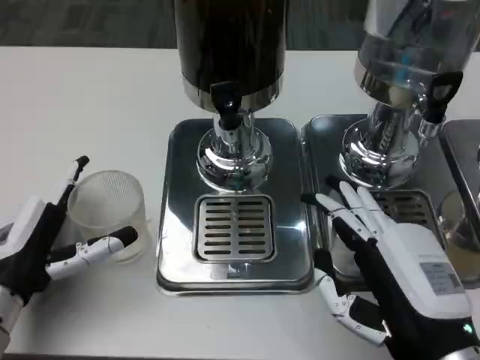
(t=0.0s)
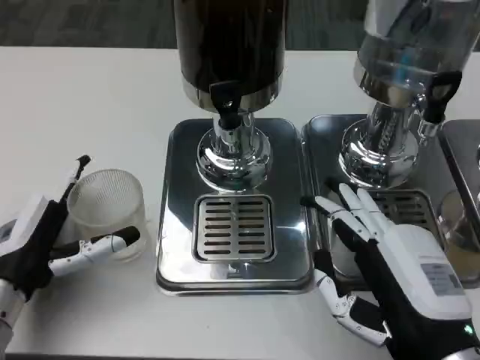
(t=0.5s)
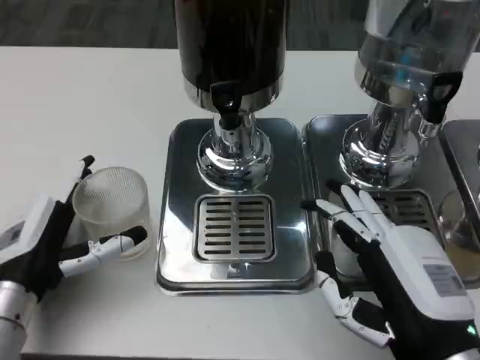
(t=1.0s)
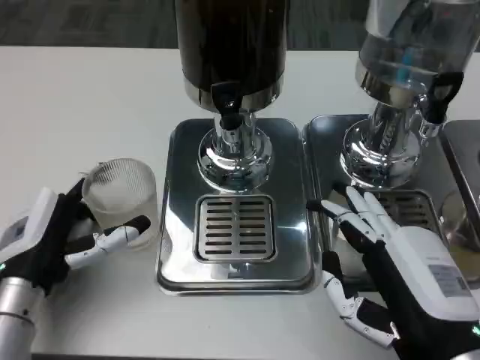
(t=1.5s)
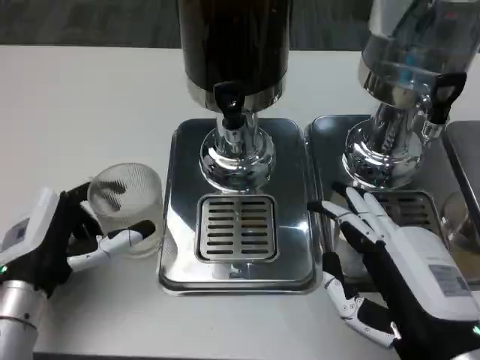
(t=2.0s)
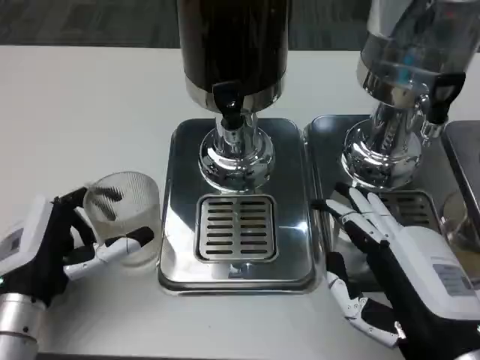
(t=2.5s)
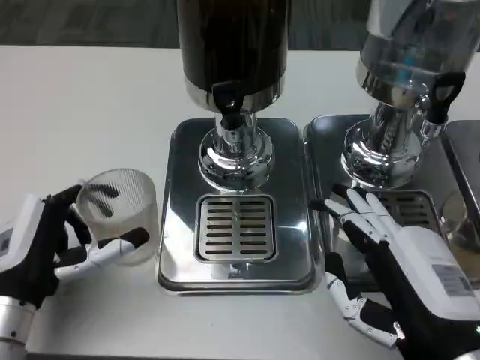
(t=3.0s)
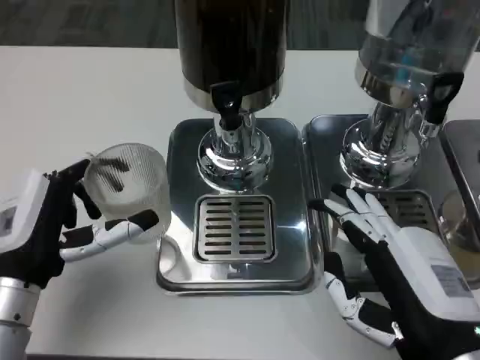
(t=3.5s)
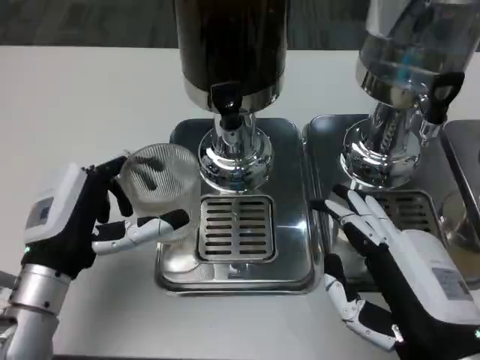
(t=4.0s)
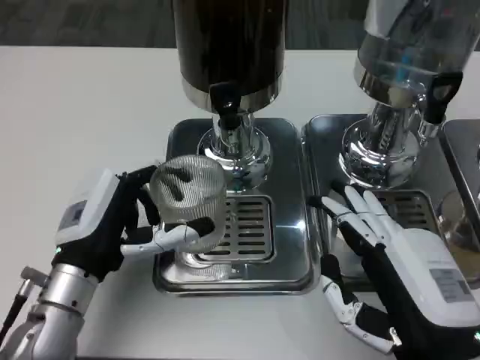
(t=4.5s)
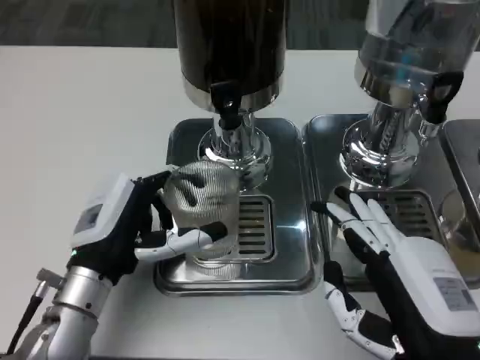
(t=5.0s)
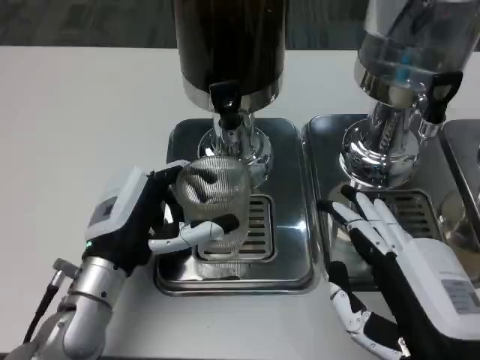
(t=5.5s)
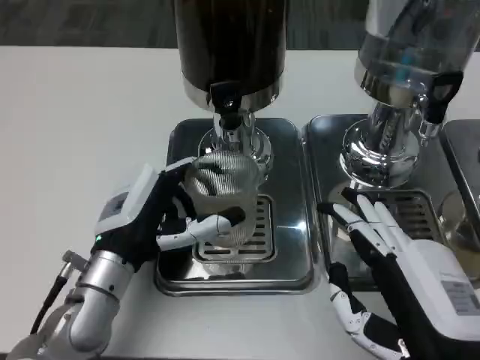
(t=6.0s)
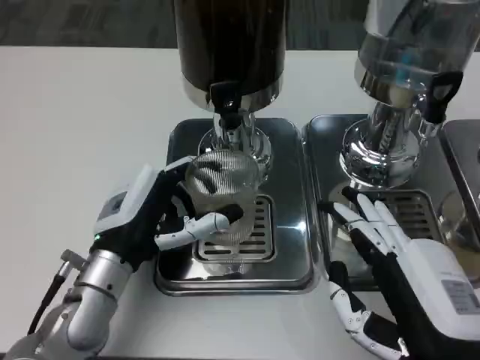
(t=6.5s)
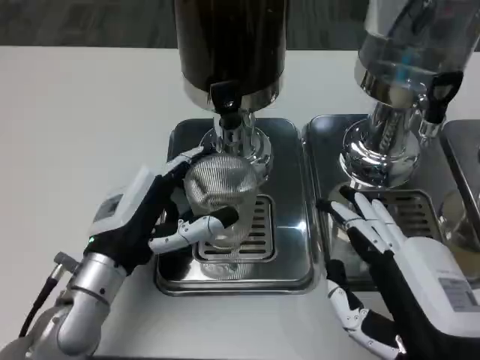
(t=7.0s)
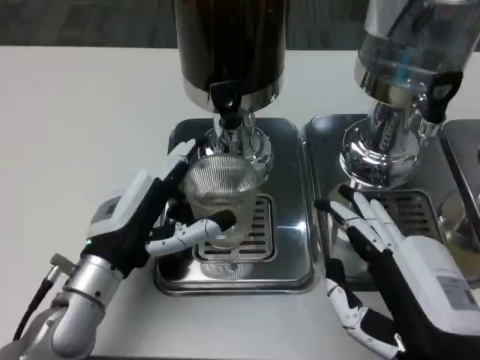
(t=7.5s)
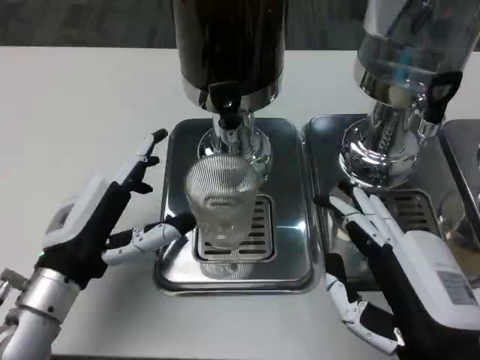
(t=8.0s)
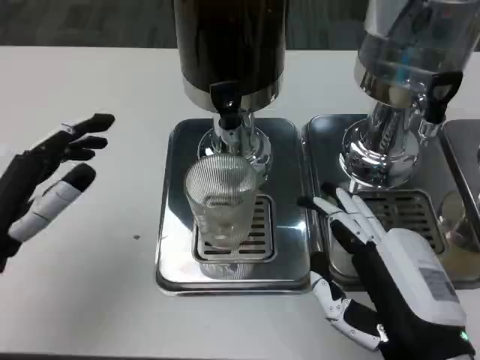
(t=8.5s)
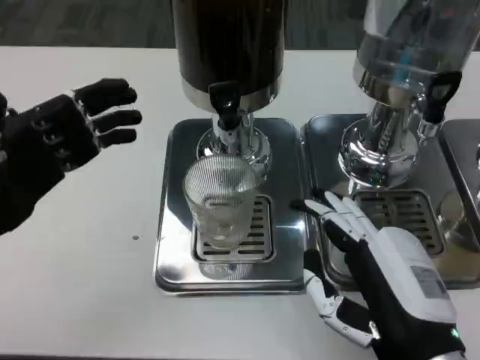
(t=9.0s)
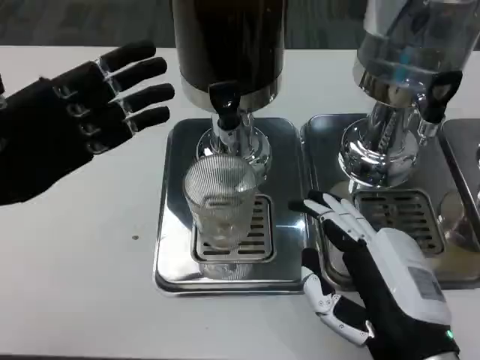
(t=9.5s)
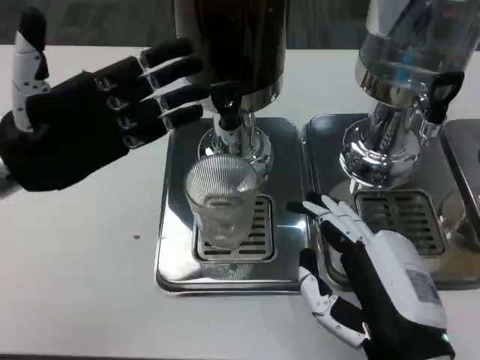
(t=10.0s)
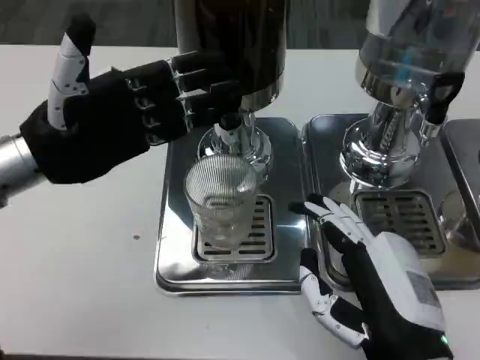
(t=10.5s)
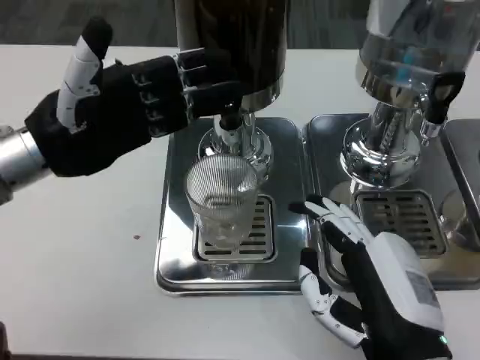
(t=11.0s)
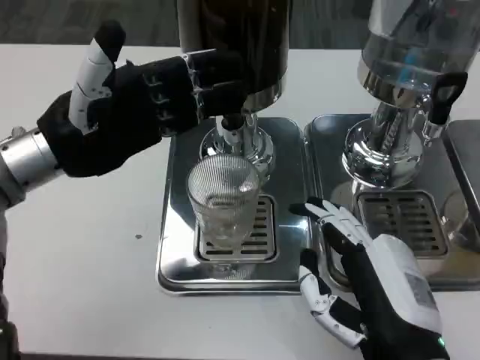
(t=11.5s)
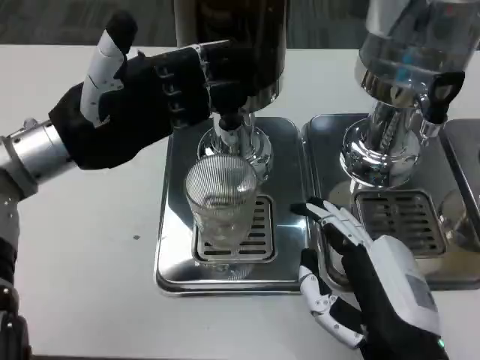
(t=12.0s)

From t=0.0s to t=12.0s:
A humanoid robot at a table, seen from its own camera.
Task of the whole recording: Grasp the cup under the faucet to collect the drink, then remove the cup.
From t=4.0s to t=6.0s: The left hand ends up about 5 cm from where it was.
From t=6.0s to t=8.0s: The left hand shifts roughly 5 cm to the left.
From t=8.0s to t=10.0s: The left hand goes some 15 cm upward, forward and to the left.
From t=10.0s to t=12.0s: The hands move only a little.

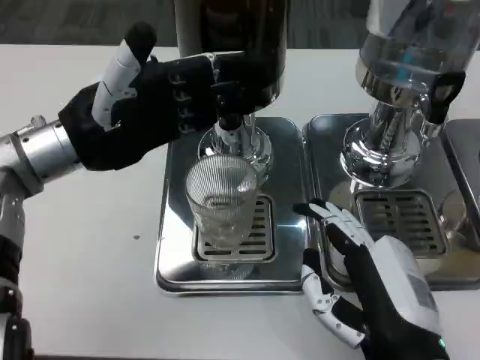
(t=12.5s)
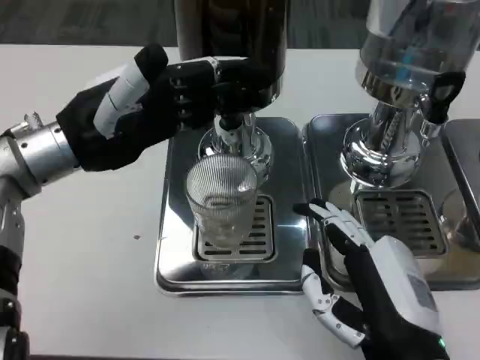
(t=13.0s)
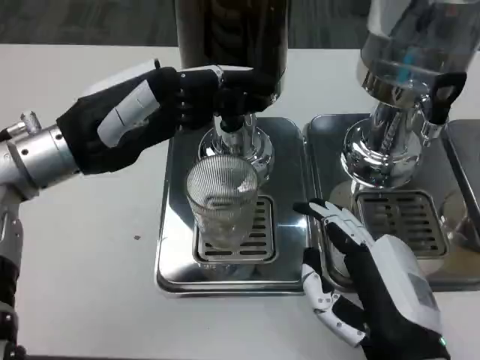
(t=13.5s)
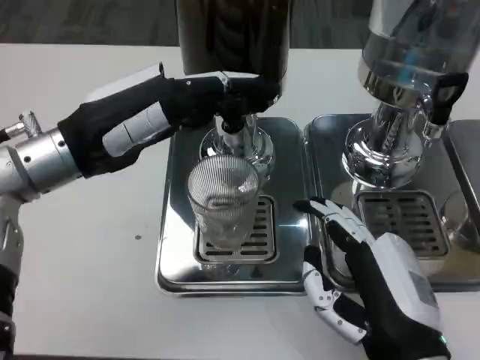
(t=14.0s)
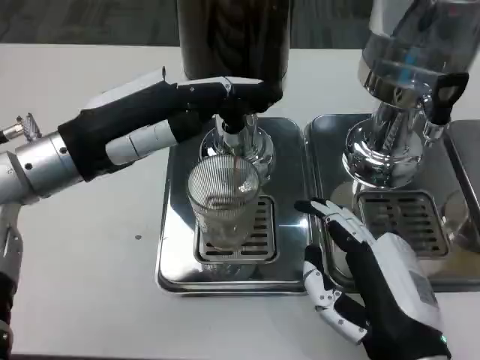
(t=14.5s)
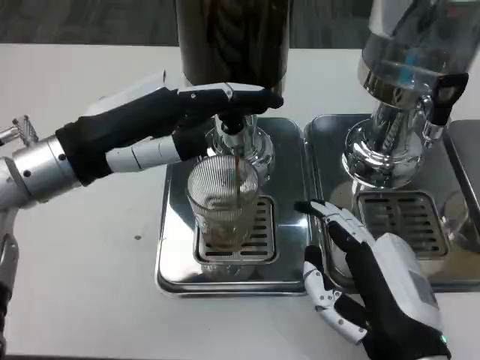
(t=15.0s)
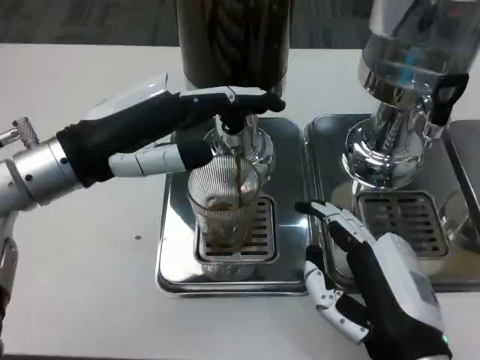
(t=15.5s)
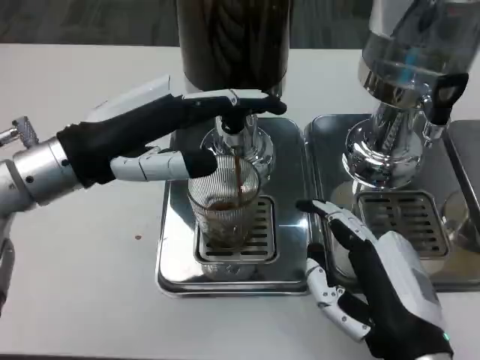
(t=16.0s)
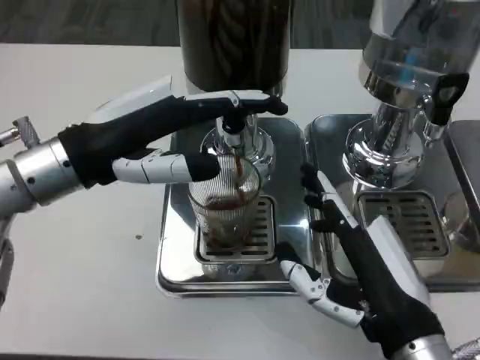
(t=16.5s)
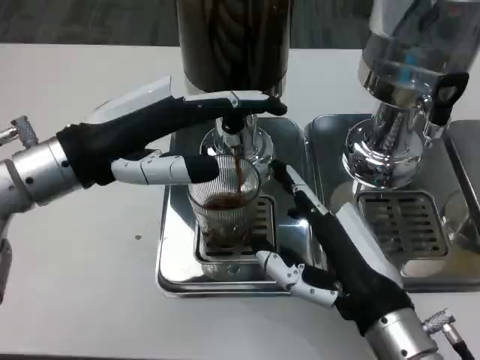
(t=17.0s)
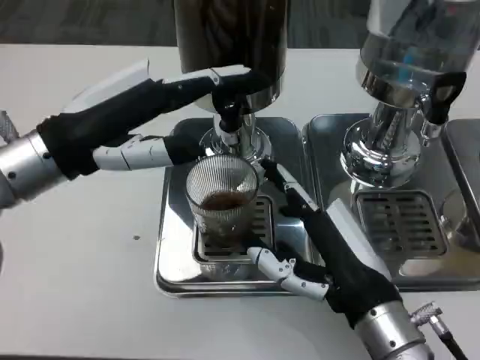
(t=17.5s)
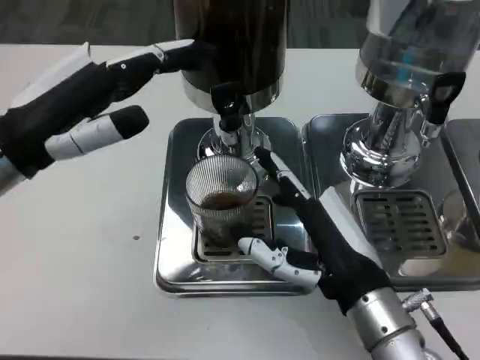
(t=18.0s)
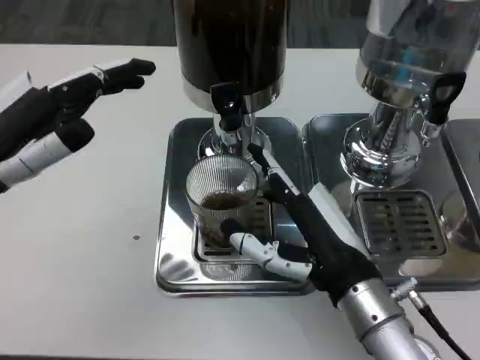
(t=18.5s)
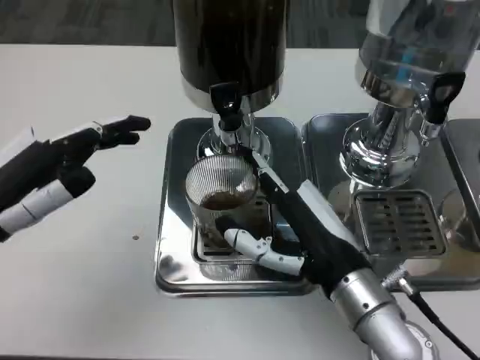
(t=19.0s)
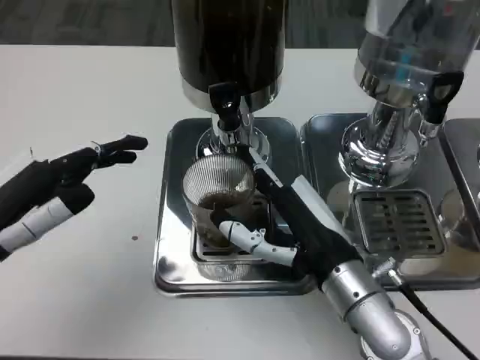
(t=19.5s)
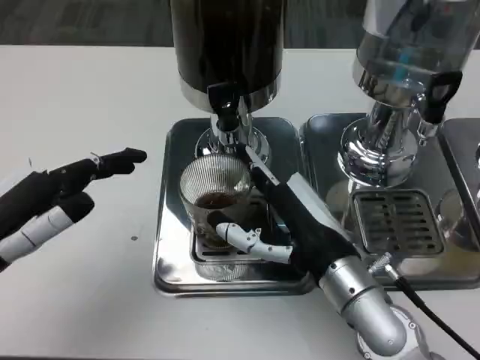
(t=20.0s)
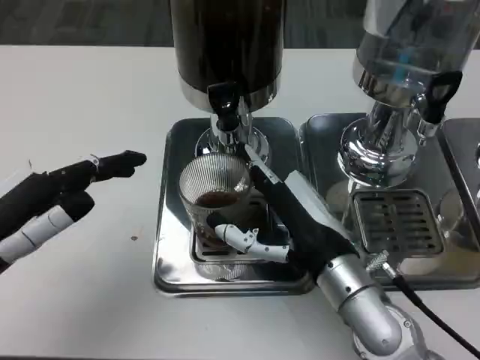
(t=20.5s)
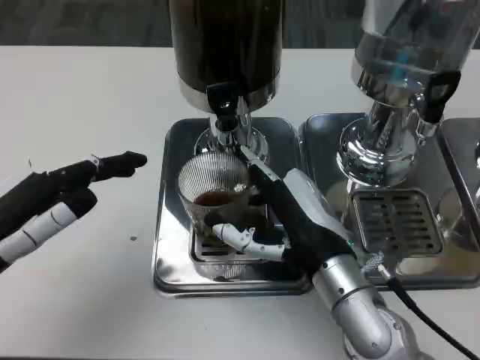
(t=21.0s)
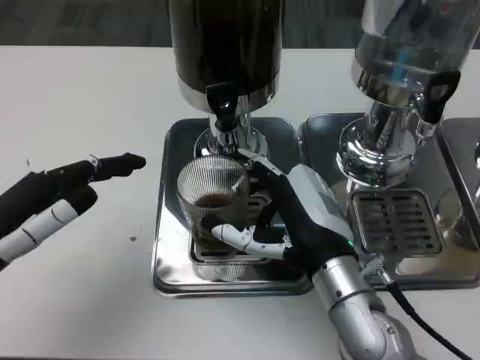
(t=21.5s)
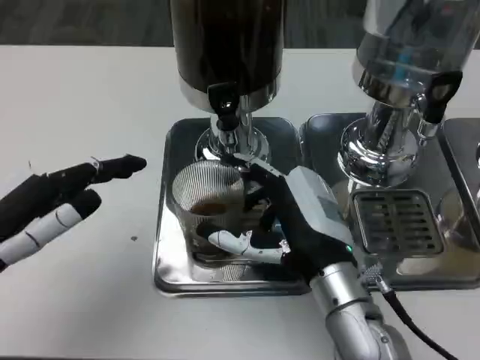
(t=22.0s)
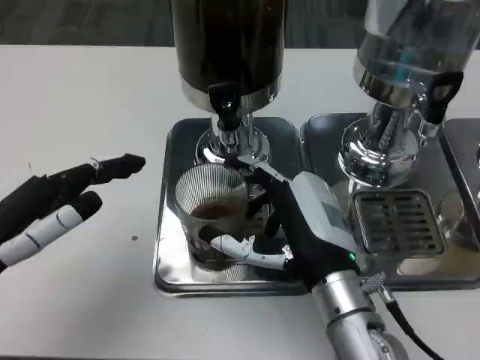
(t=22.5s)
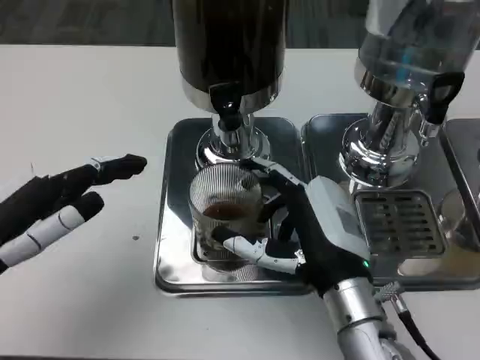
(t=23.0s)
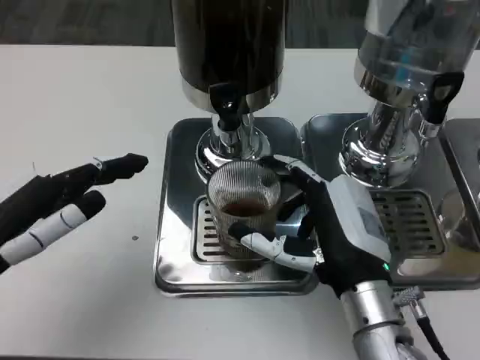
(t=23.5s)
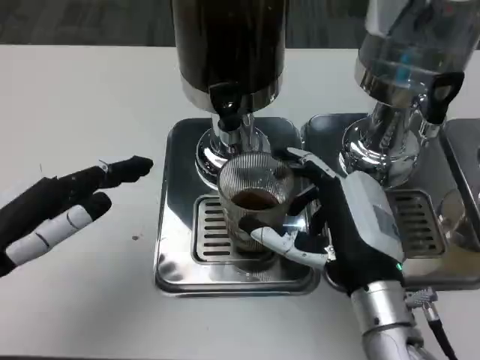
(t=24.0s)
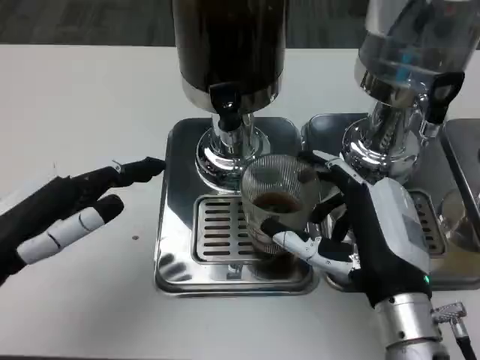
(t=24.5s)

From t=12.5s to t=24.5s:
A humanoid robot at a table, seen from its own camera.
Task of the whole recording: Grasp the cup under the faucet to collect the drink, then remove the cup.
From t=14.5s to t=16.5s: The hands make only small movements.
From t=16.5s to t=18.5s: The left hand shifts approximately 5 cm to the left. Meanwhile the right hand goes about 5 cm forward.
From t=18.5s to t=20.5s: The left hand ends up some 5 cm from where it was.
From t=20.5s to t=22.5s: There are only small adjustments of the hands.
From t=22.5s to t=24.5s: The right hand ends up approximately 5 cm from where it was.

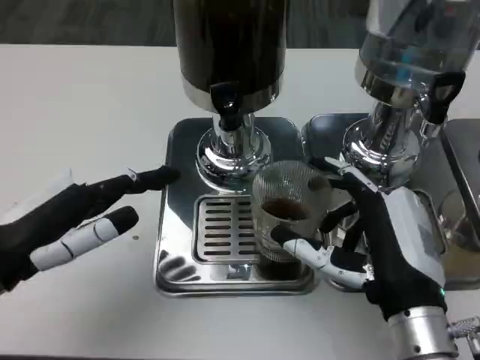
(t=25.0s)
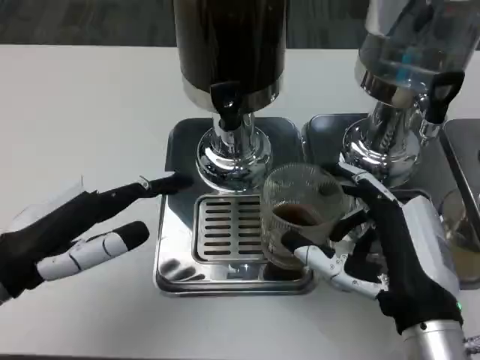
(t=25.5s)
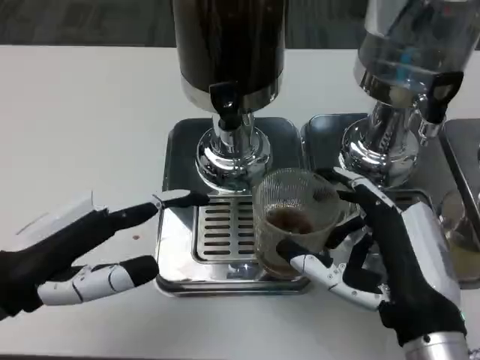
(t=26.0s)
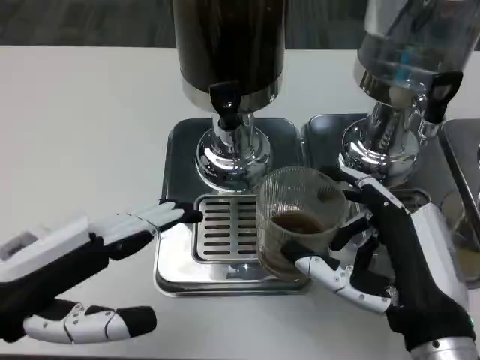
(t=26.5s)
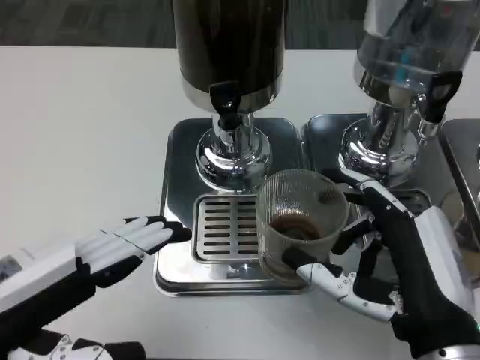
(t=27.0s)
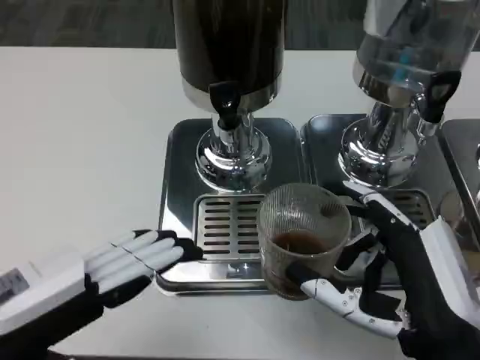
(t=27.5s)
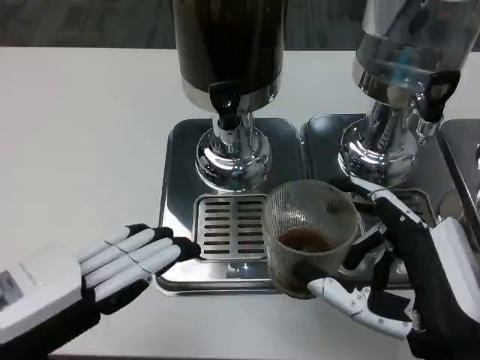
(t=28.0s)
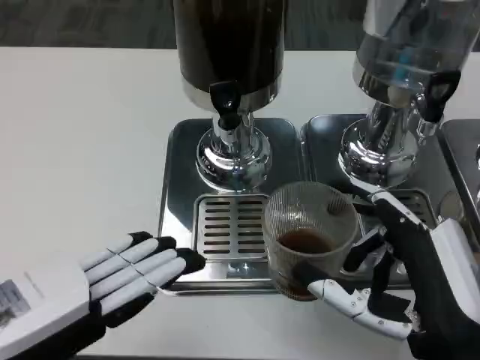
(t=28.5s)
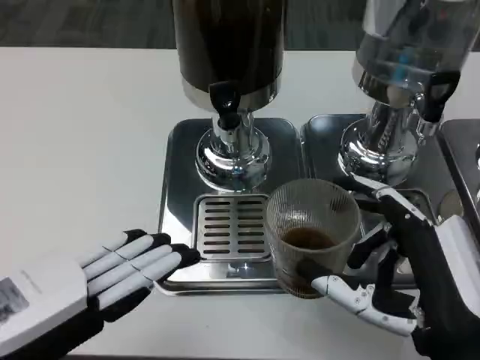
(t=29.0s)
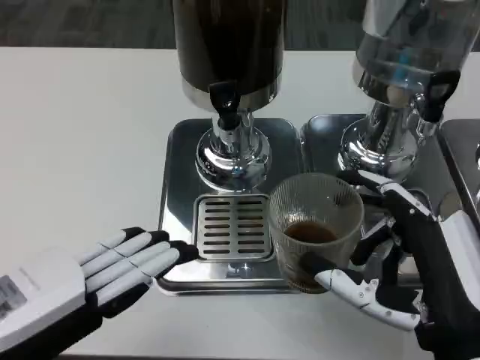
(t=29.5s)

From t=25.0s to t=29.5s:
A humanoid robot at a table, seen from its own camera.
Task of the whole recording: Grasp the cup under the faucet to collect the drink, then remove the cup.
From t=25.0s to t=27.0s: The left hand moves backward, some 5 cm.
